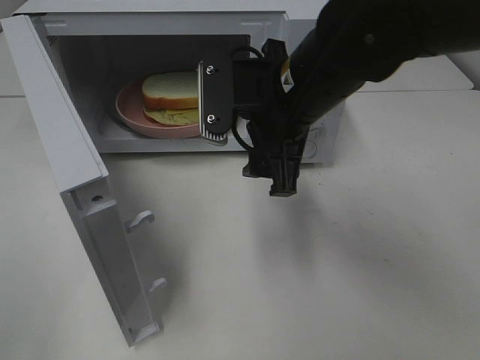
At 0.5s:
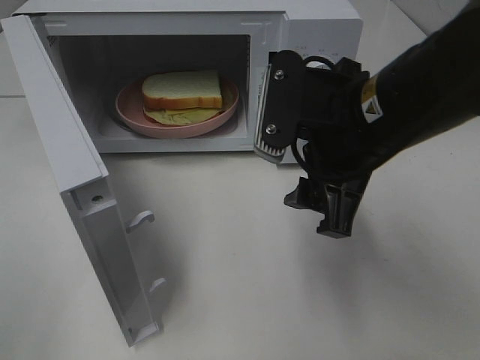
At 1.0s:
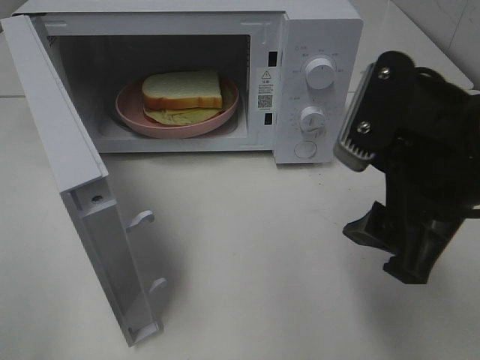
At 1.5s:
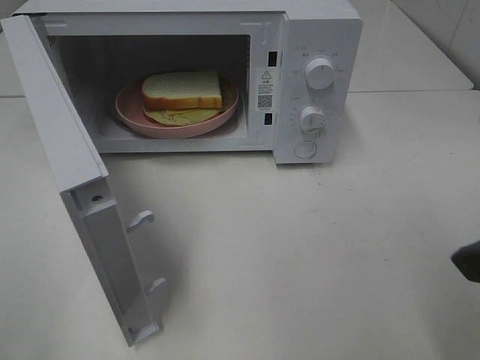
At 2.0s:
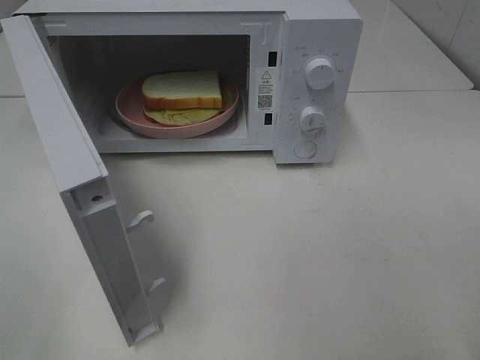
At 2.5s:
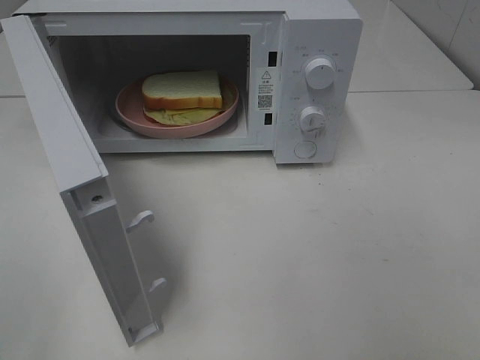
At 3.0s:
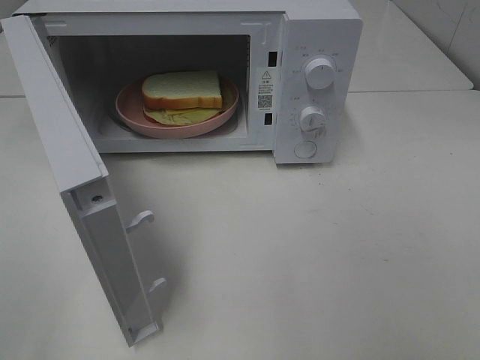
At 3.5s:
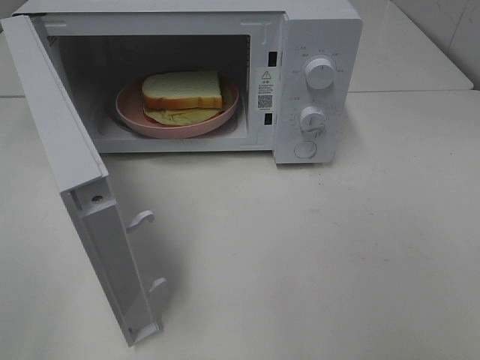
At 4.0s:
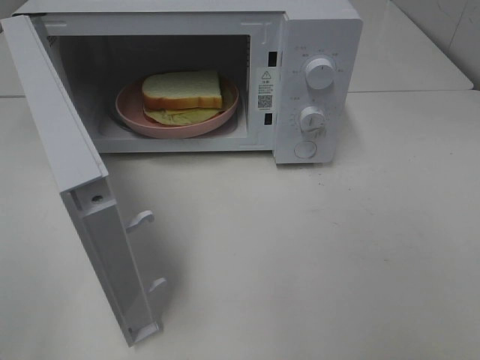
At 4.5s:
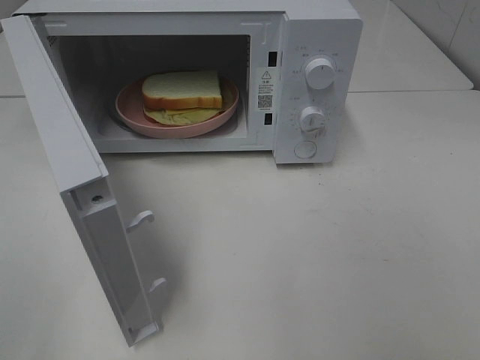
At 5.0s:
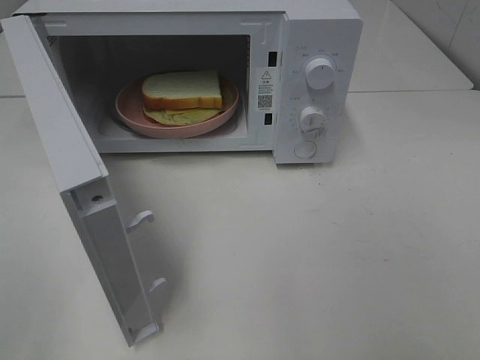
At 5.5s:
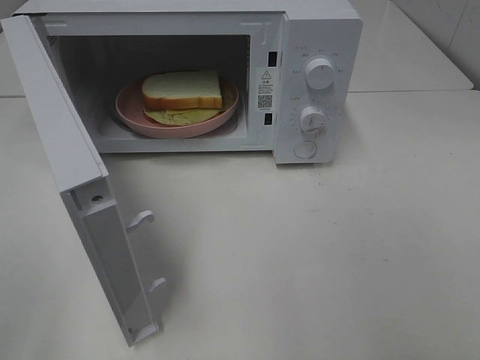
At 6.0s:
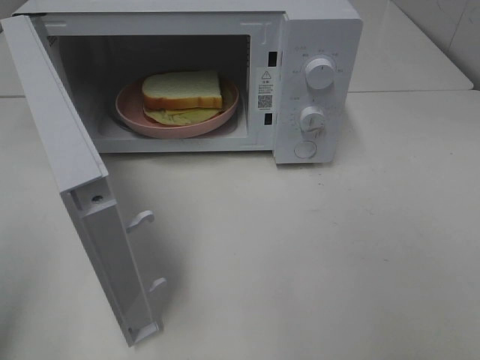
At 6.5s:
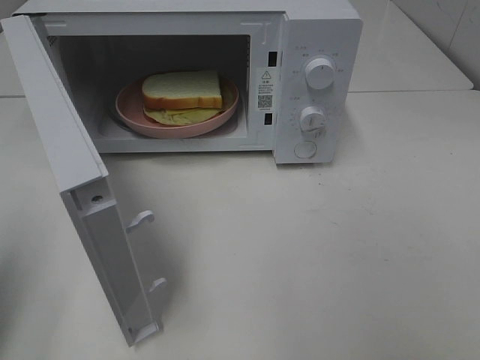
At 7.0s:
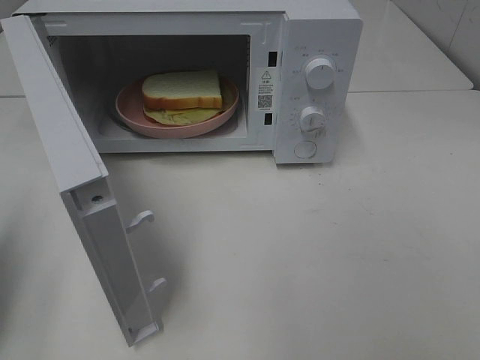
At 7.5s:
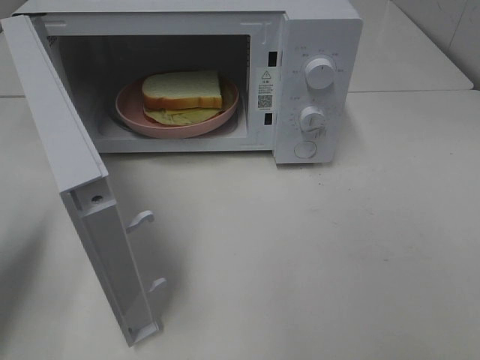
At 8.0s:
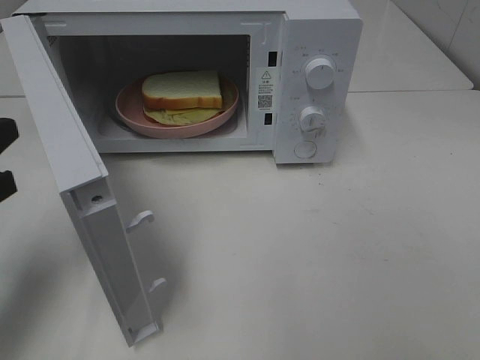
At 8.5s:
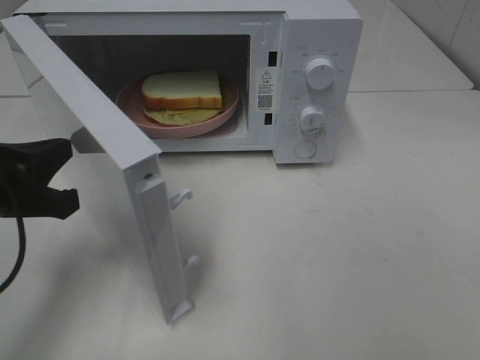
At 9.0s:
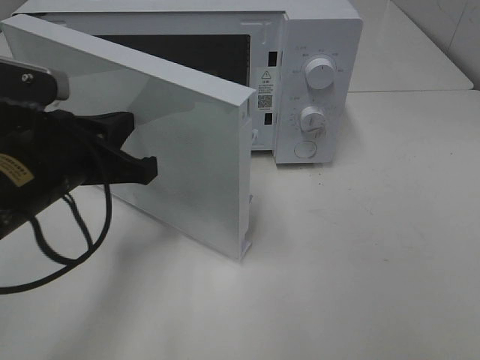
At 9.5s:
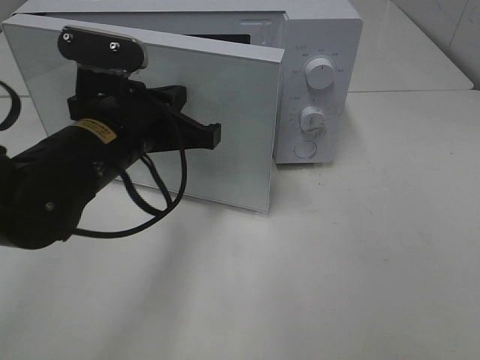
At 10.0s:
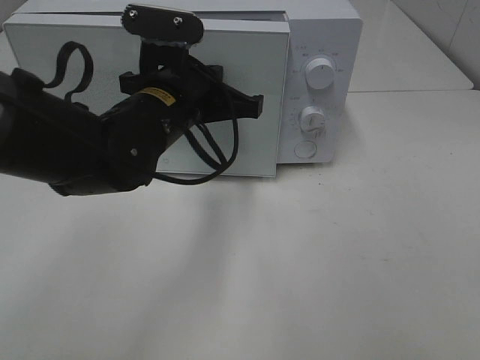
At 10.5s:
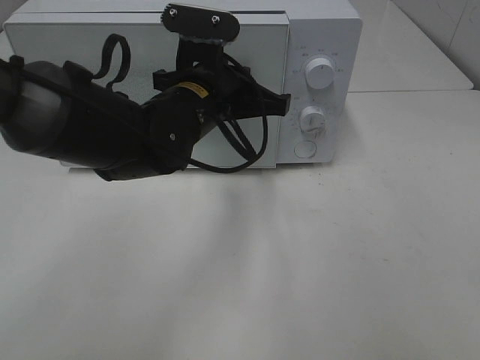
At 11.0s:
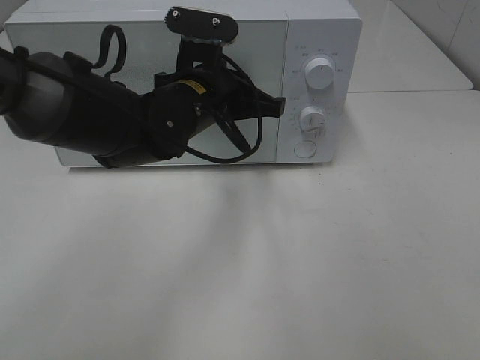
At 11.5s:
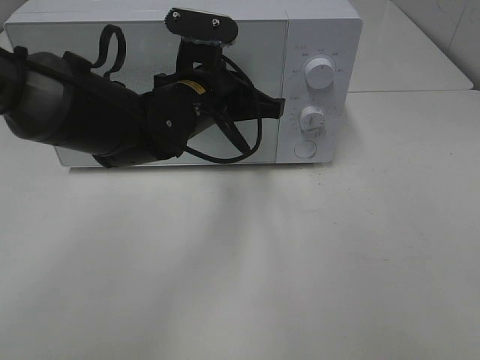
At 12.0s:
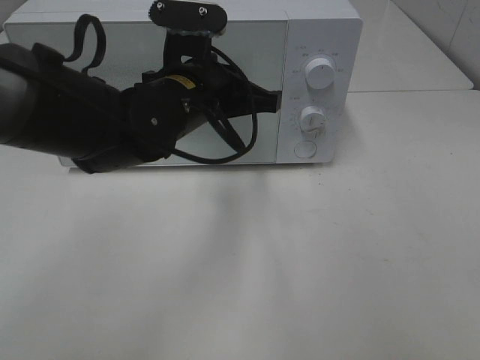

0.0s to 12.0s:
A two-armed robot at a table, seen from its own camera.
Task of the whole recording: Heat Sandwich.
Step, 0.0s to 11.5s: Left hand: close the microwave door.
0.0s to 2.0s: The right gripper is displaced backward and to the right by roughly 25 cm.
6.0s to 8.0s: The left gripper moves forward and downward, some 15 cm.
8.0s to 10.0s: The left gripper heads to the right and forward, covering some 25 cm.
10.0s to 12.0s: The grippers make only small movements.

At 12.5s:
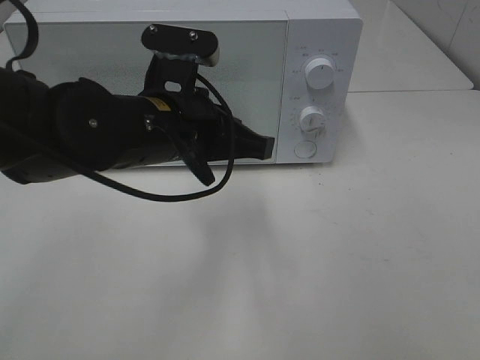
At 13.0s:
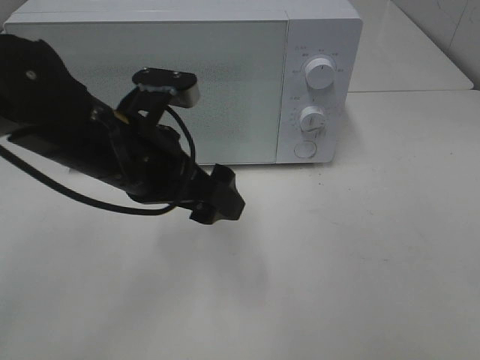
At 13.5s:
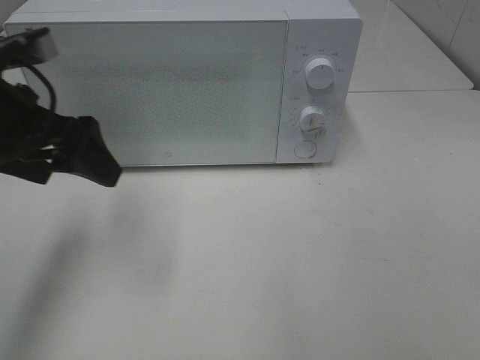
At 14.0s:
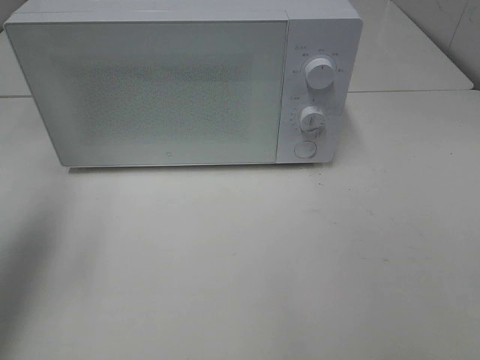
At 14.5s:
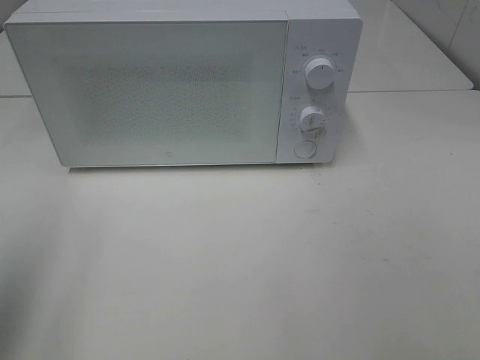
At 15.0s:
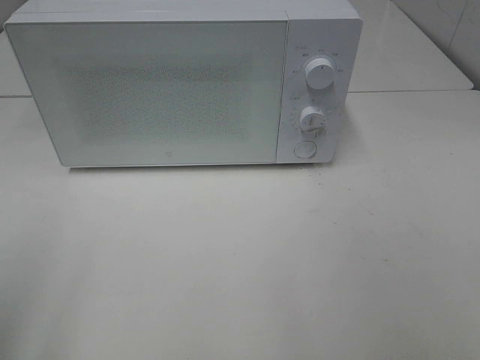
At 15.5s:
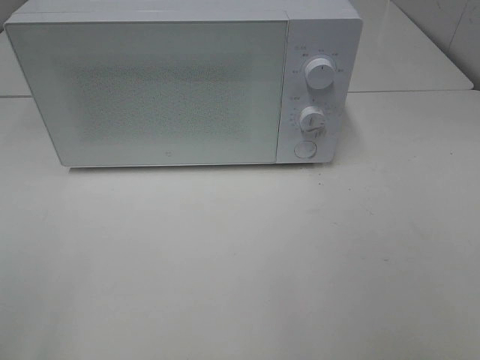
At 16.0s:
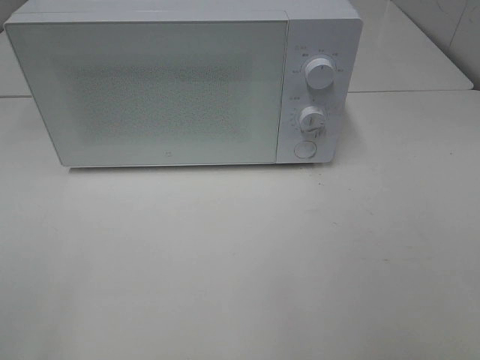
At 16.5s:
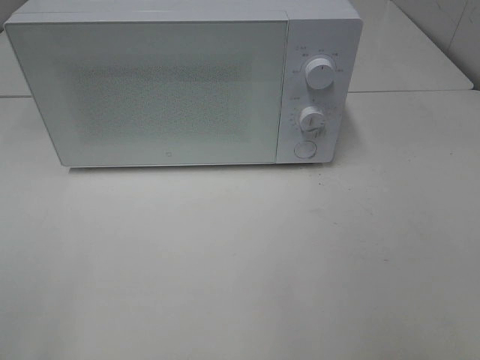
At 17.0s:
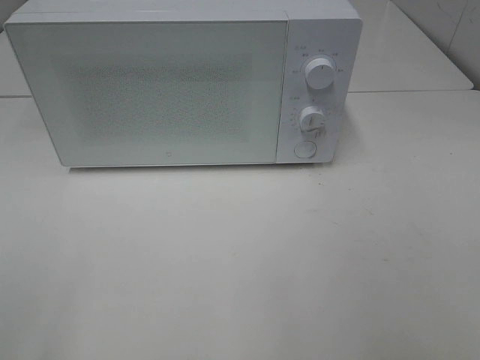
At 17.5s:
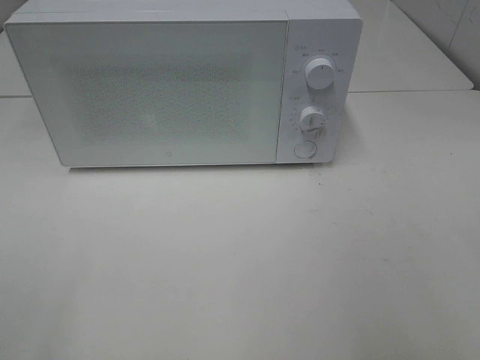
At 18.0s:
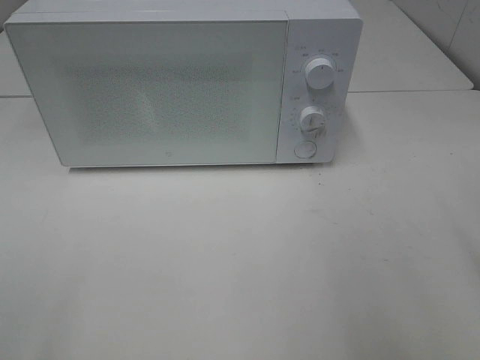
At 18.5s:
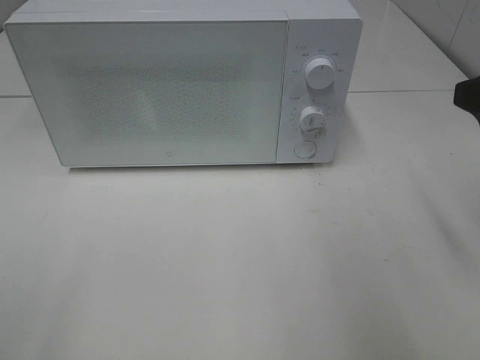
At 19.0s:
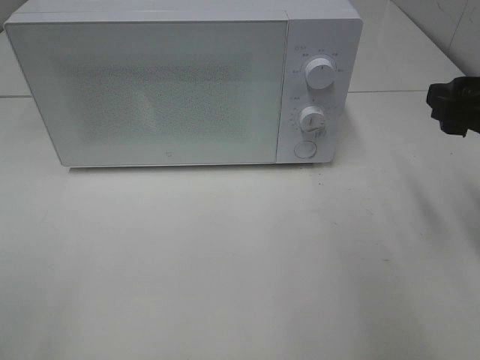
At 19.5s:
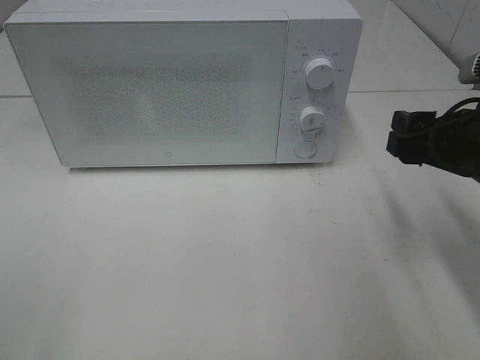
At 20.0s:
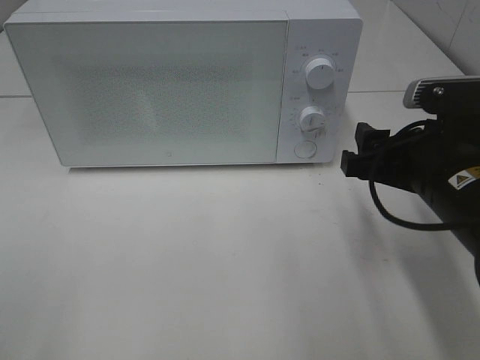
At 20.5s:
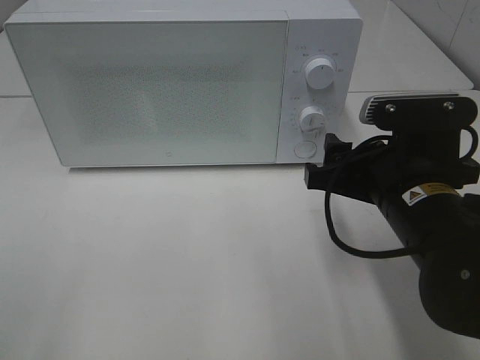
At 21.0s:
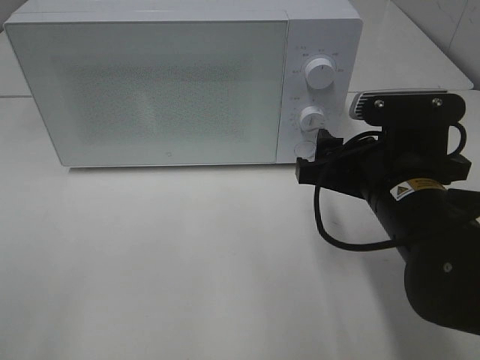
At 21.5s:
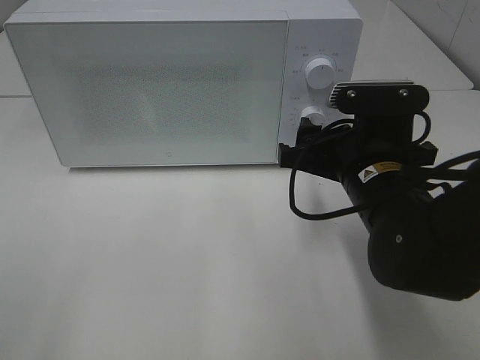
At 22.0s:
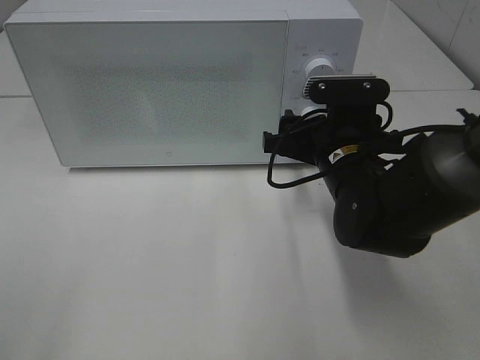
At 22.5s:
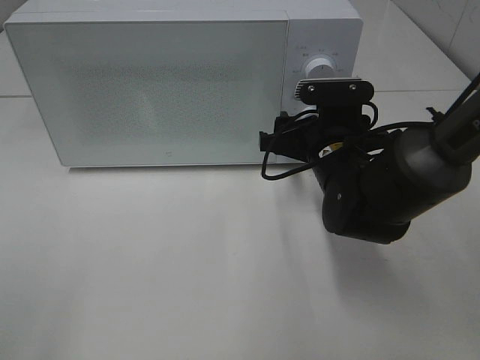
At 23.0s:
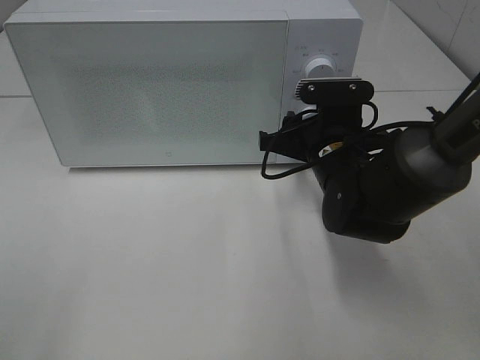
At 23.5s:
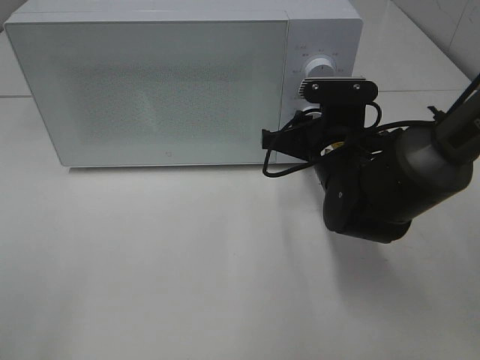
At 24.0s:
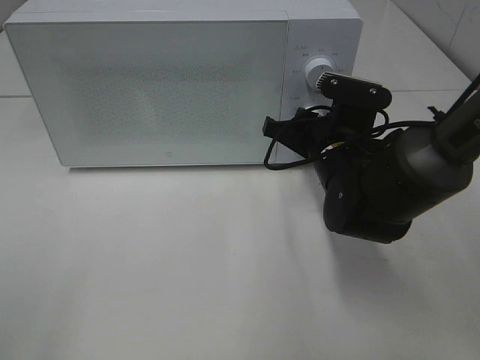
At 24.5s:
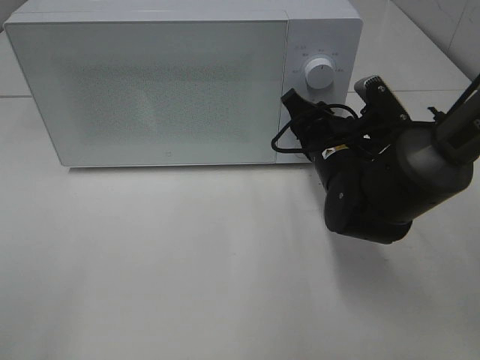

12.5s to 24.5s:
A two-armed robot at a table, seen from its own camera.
Task of the whole recording: Heat Sandwich.
12.5s to 14.5s: The left gripper heads to the left and backward, covering some 30 cm, and opens.
14.5s to 16.5s: The left gripper travels backward by about 10 cm.
18.5s to 20.5s: The right gripper moves to the left and downward, about 15 cm.
20.5s to 22.5s: The right gripper goes about 10 cm forward.
22.5s to 24.5s: The right gripper closes.

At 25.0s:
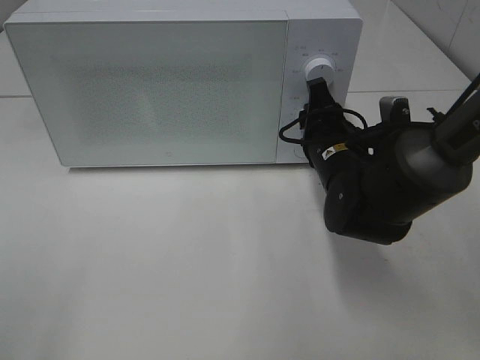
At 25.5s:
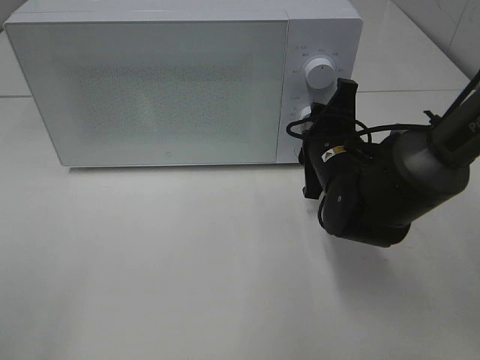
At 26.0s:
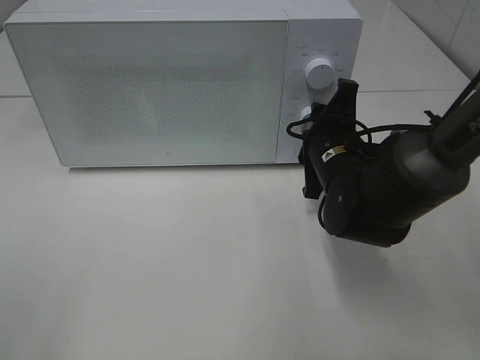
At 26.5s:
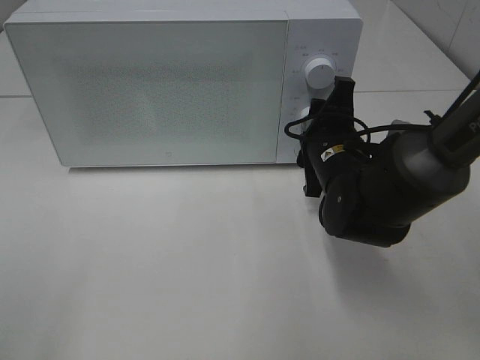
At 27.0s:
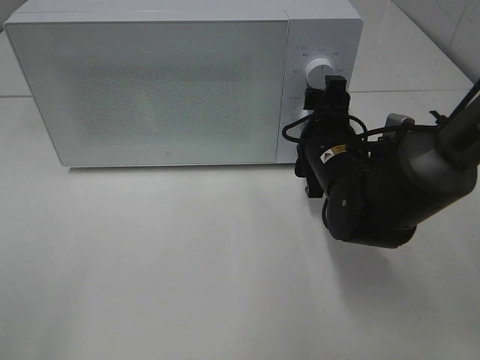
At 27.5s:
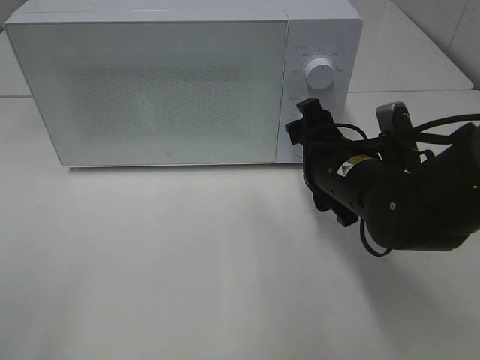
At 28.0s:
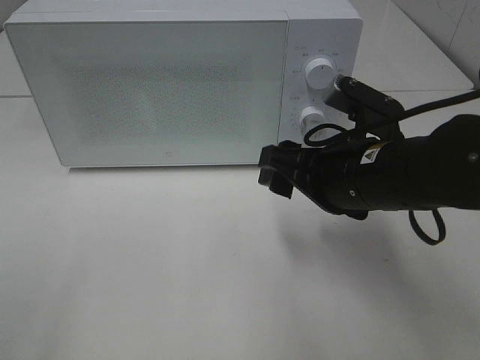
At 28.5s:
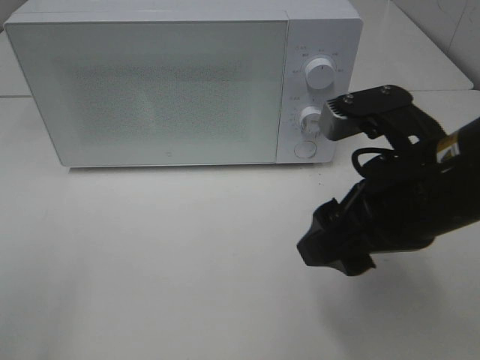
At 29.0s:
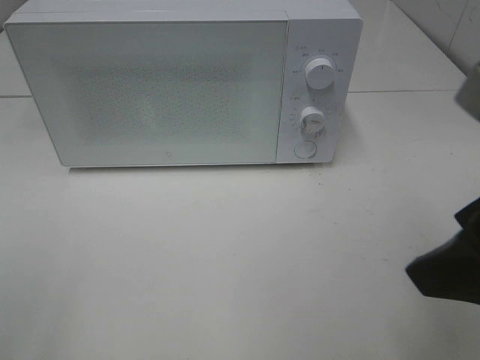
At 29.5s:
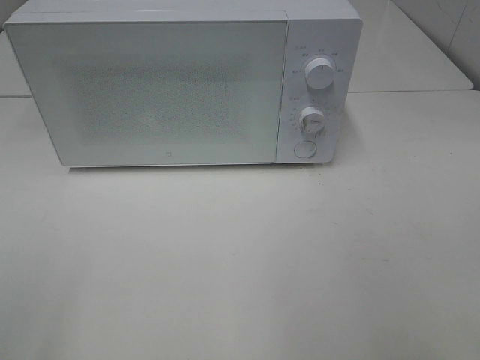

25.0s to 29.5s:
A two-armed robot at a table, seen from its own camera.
Task of the whole recording: Heat Sandwich.
Step, 25.0s to 27.0s: Right hand: twist timer button.
25.0s to 27.0s: The right gripper opens up.
27.0s to 29.5s: The right gripper moves backward, upward and to the right, approximately 35 cm.
